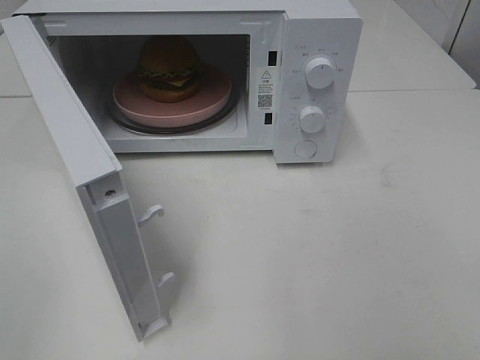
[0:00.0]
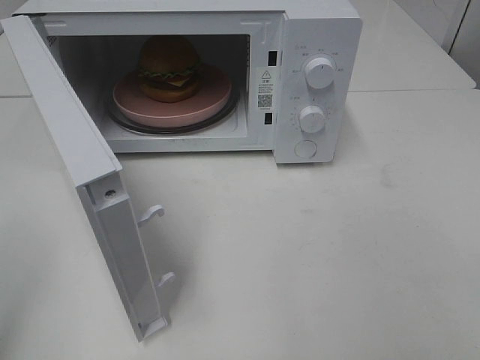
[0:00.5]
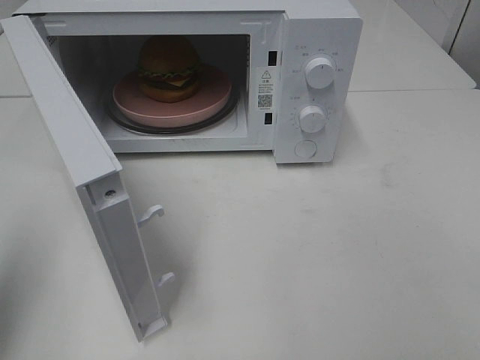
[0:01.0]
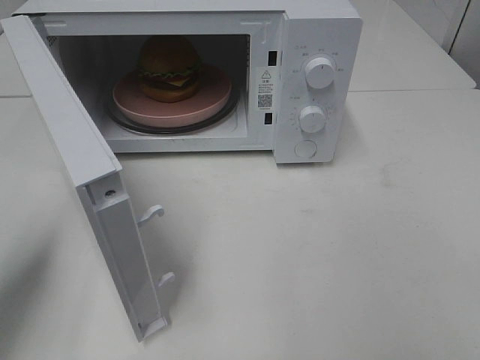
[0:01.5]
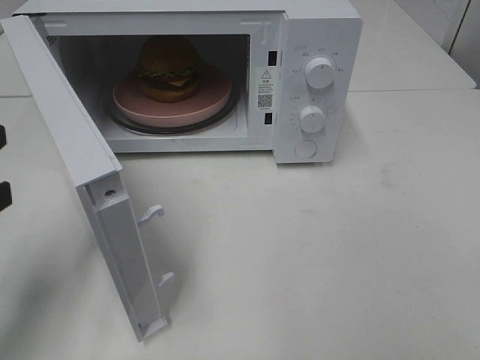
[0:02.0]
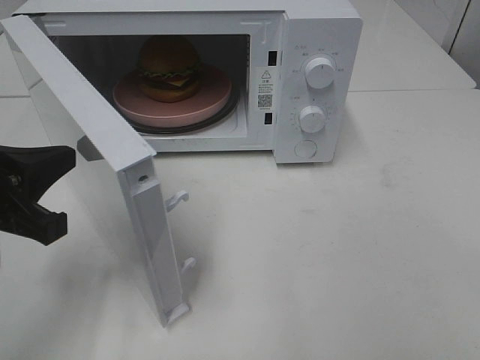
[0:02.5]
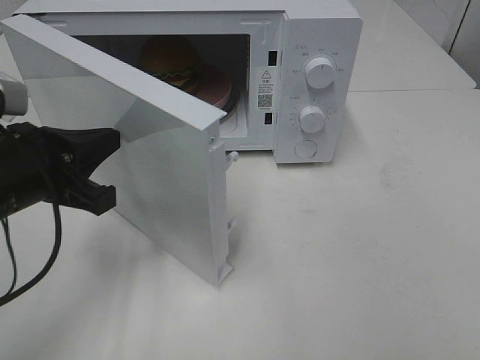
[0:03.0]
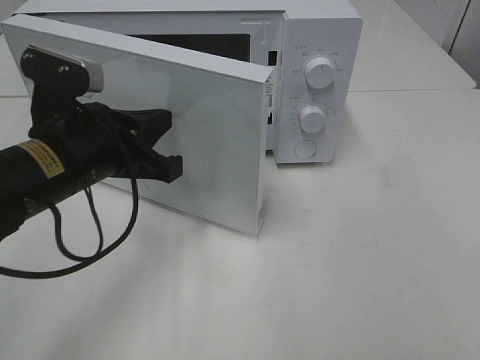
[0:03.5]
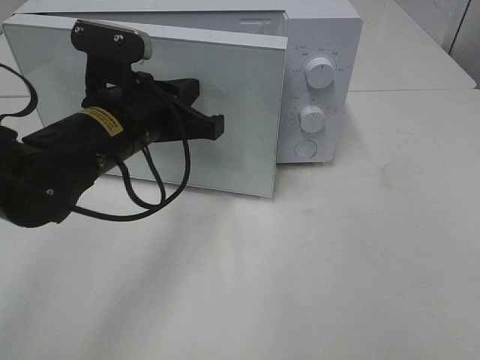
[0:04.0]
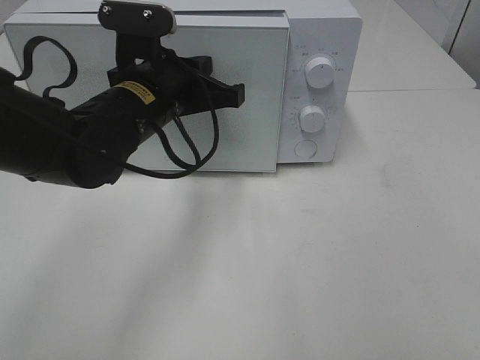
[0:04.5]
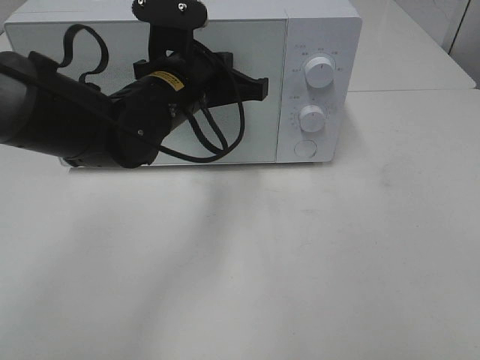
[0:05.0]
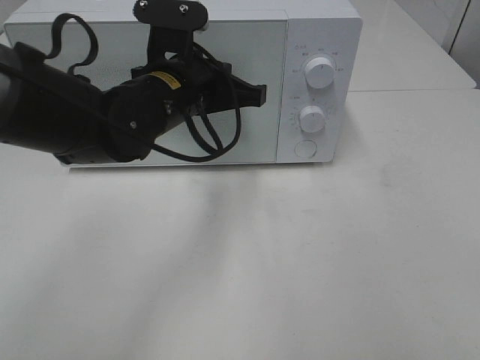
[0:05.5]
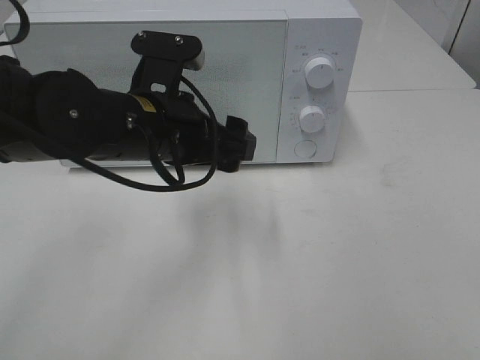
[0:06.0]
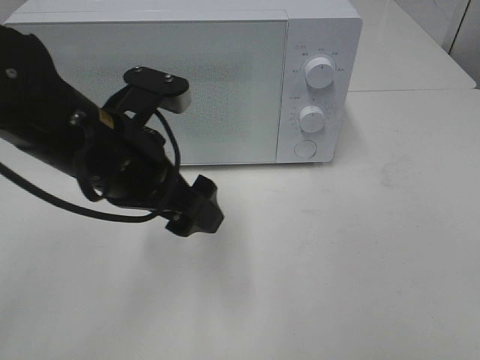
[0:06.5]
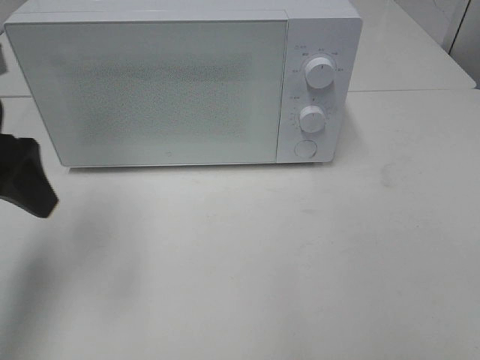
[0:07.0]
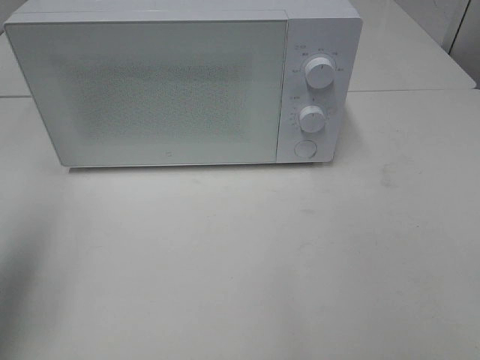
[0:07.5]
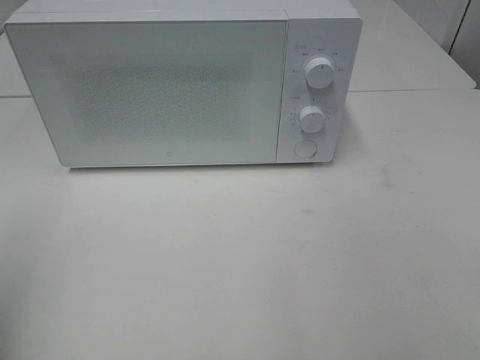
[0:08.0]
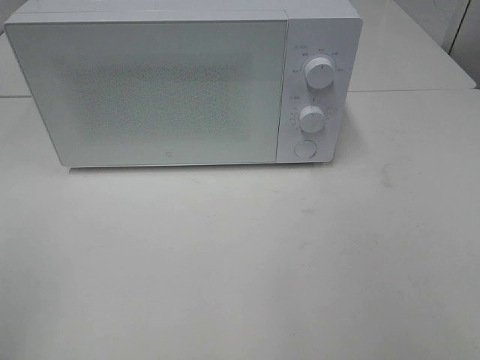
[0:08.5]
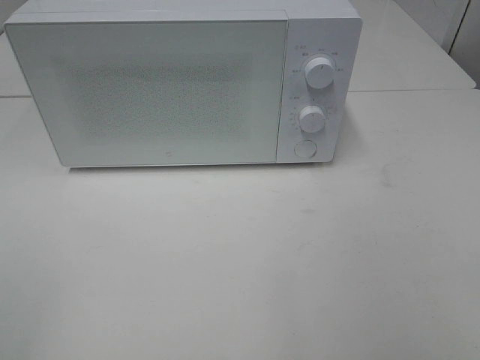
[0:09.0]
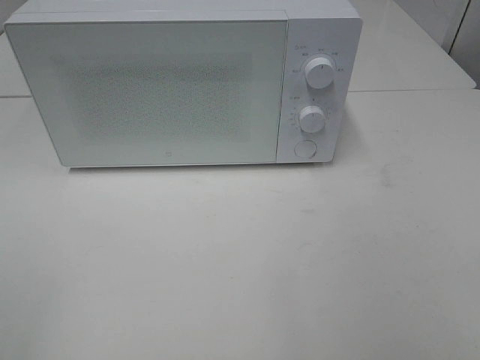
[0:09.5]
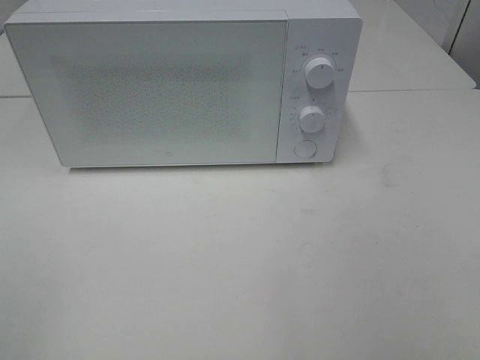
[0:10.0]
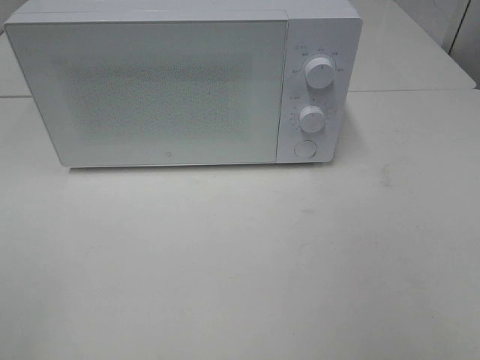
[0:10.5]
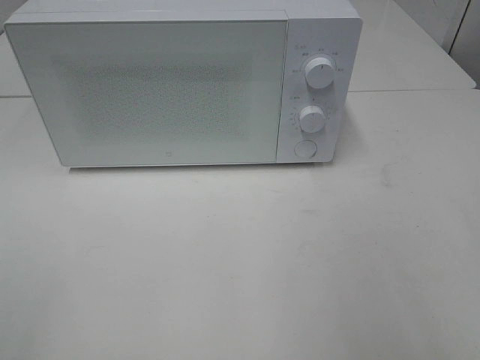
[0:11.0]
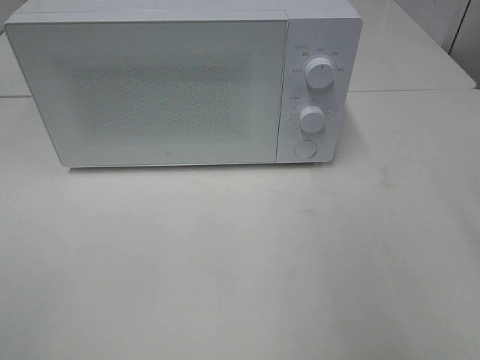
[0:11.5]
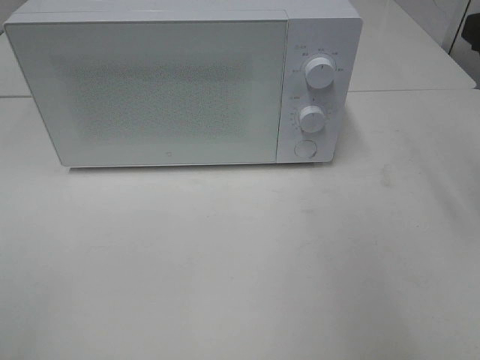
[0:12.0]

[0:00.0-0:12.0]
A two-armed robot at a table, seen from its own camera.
Task of the whole recording: Heat the burger.
Step, 0:00.0 to 0:06.0: Left hand: close the microwave door.
0:00.0 to 0:02.0: The left gripper goes about 20 cm forward and downward, and closes its fingers.
0:02.0 to 0:04.0: The left gripper goes about 20 cm to the right and forward.
0:04.0 to 0:06.0: The left gripper opens its fingers.
0:06.0 to 0:08.0: The left gripper heads to the left, backward and upward, covering roughly 35 cm.

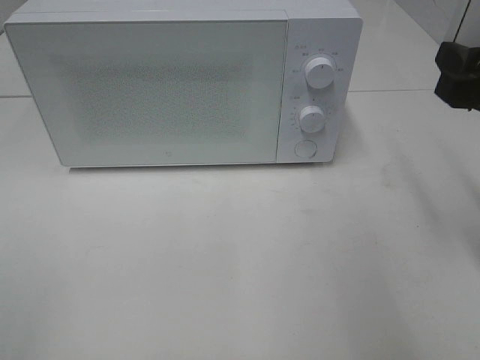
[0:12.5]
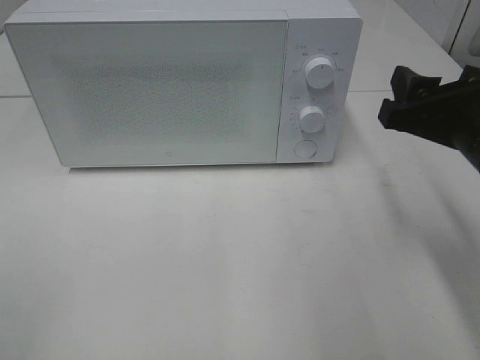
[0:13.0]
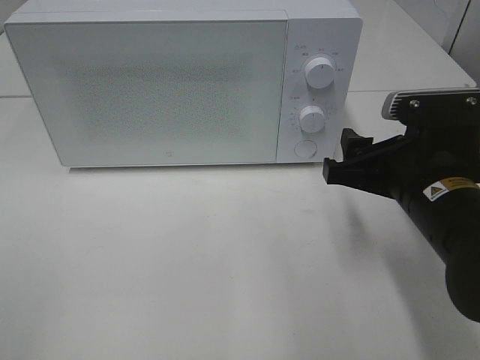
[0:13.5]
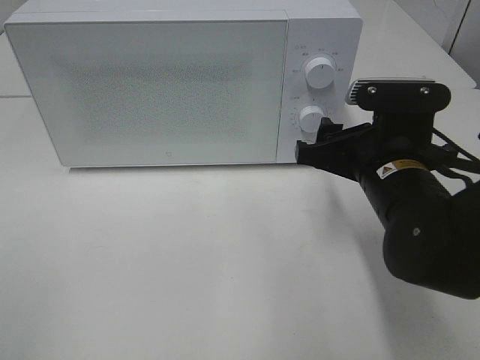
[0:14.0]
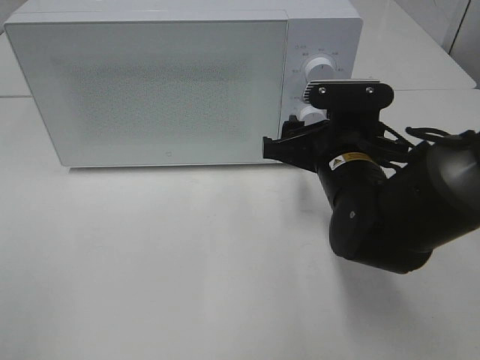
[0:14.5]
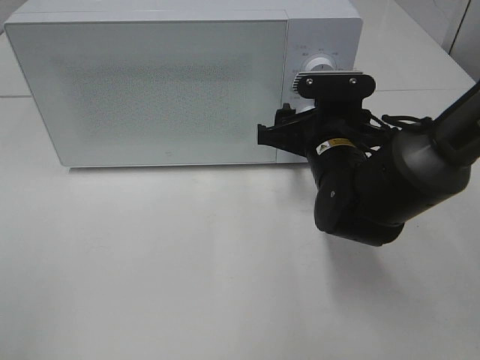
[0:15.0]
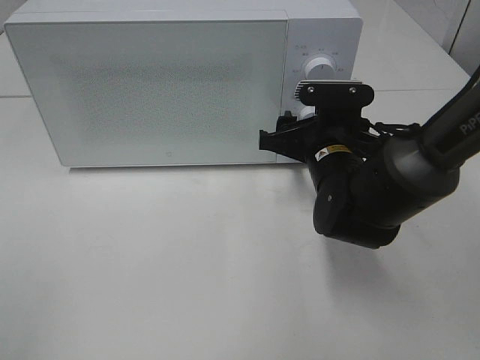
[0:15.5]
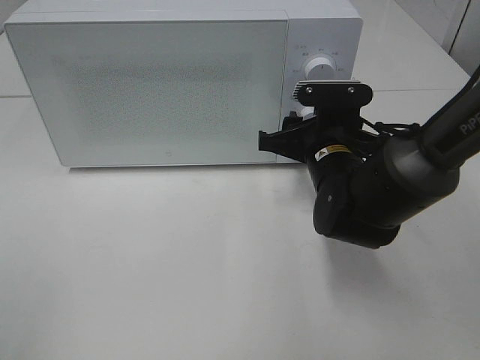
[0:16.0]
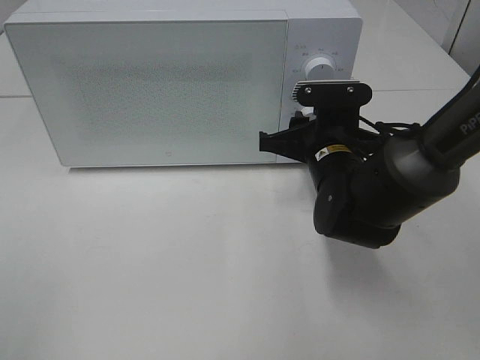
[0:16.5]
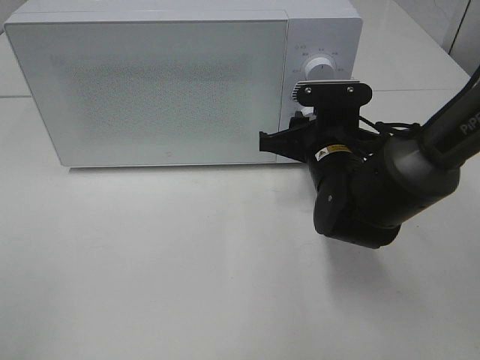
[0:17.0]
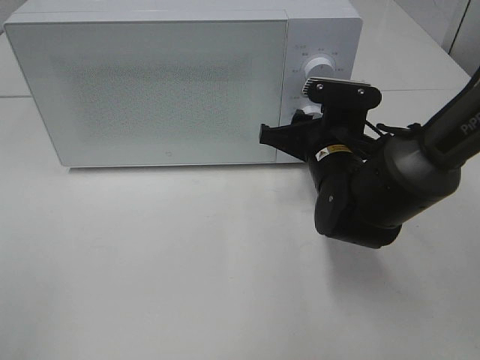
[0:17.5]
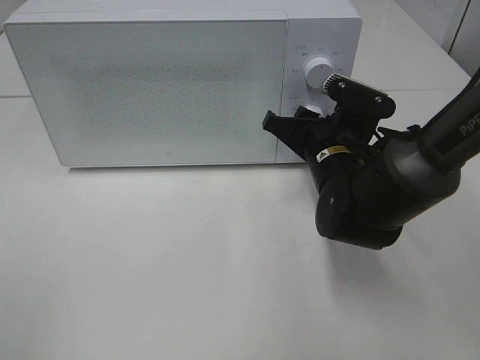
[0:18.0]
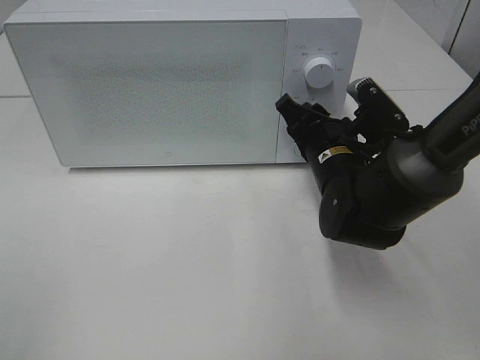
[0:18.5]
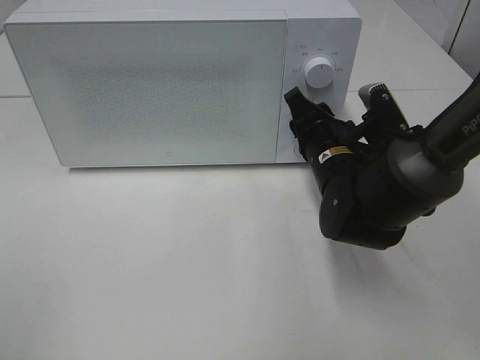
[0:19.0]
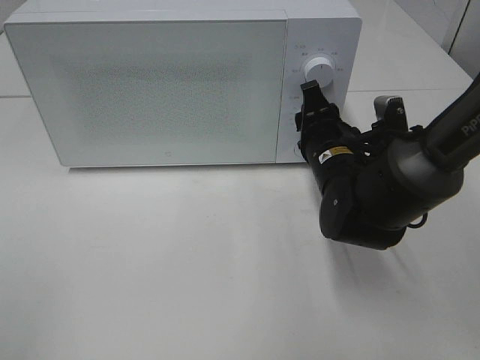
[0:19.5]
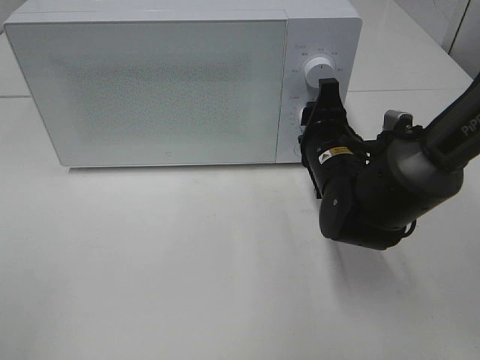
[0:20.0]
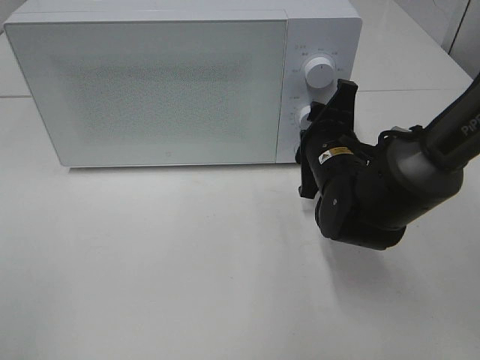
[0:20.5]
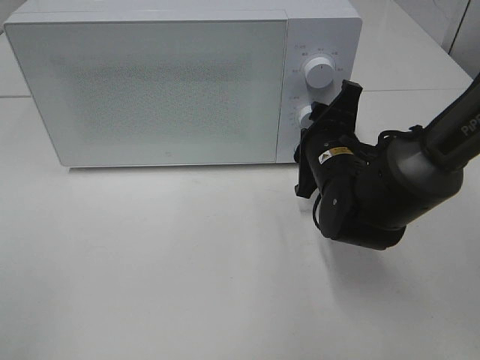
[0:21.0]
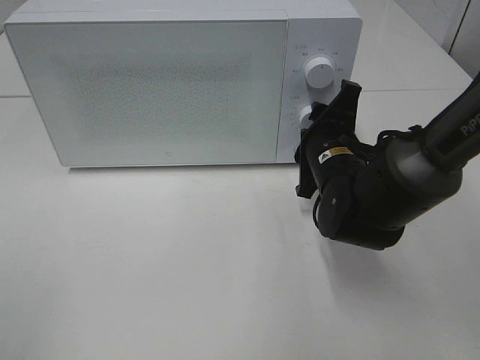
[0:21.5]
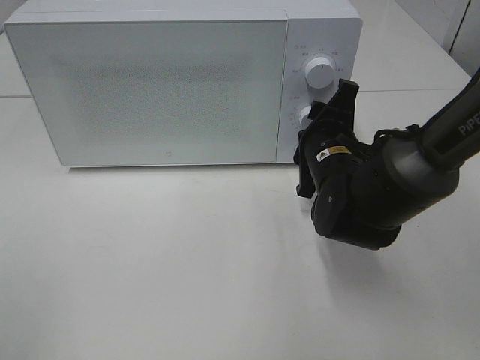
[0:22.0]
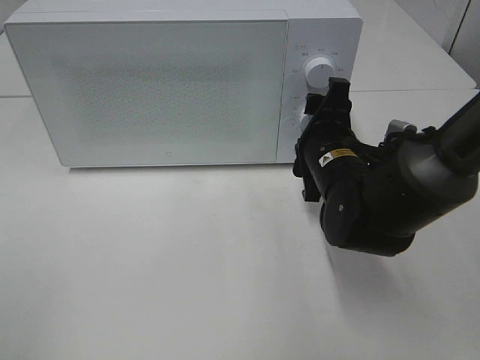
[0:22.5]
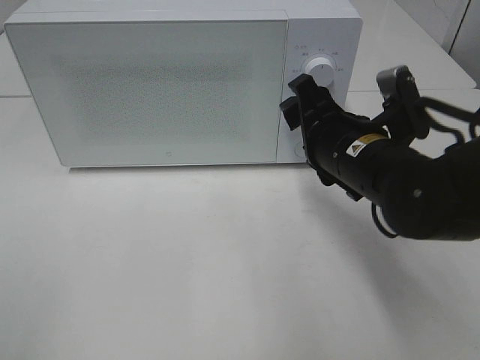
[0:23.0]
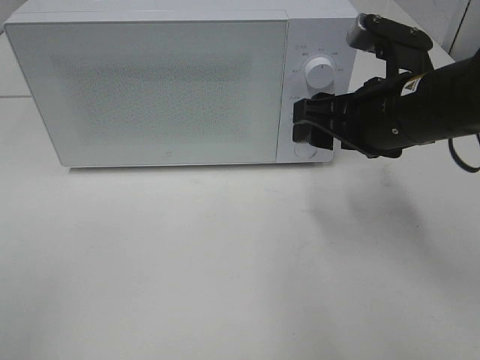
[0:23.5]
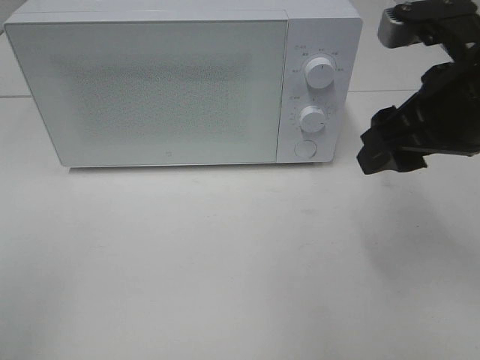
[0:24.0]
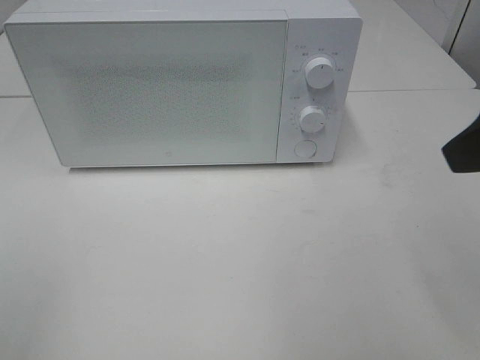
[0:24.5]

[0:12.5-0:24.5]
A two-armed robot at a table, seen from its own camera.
Task of the whole recording: Heat the burger.
Step, 0:12.5 to 0:22.5: Right hand: twist timer button.
0:12.5 to 0:14.5: The right gripper heads to the left, downward and forward, covering roughly 20 cm.
0:14.5 to 0:16.5: The grippers make only small movements.
0:20.5 to 0:22.5: The grippers stay close to where they were, moving slightly.
0:22.5 to 0:24.5: The right gripper is displaced upward, backward and to the right by approximately 30 cm.

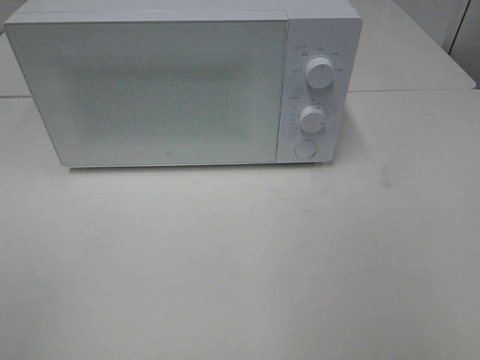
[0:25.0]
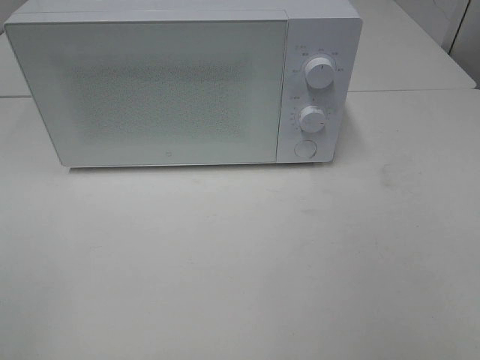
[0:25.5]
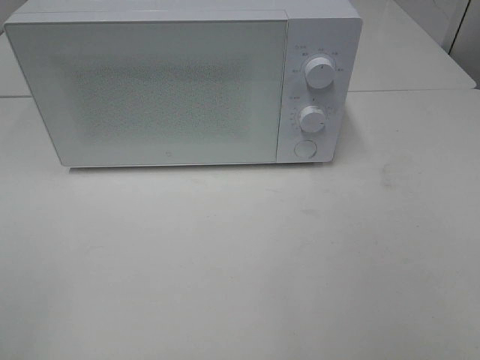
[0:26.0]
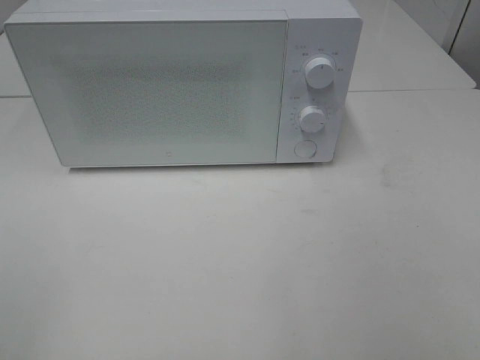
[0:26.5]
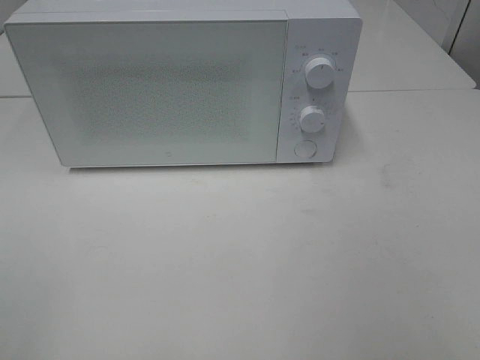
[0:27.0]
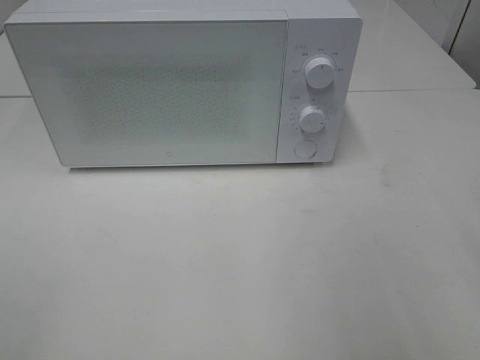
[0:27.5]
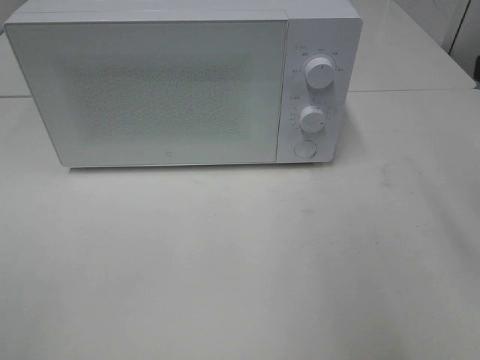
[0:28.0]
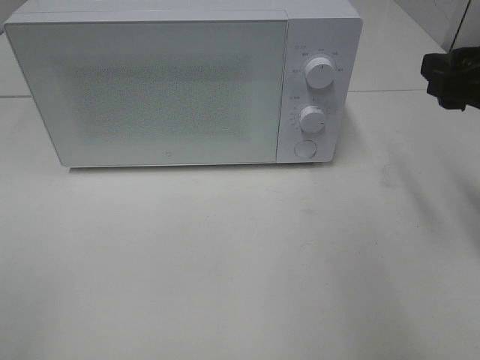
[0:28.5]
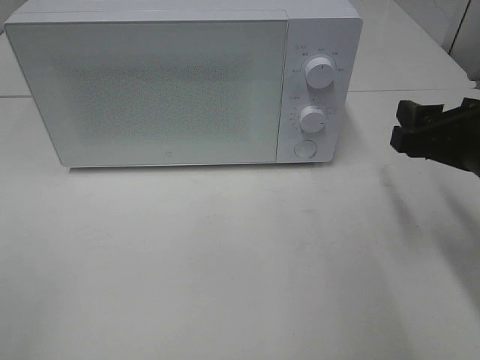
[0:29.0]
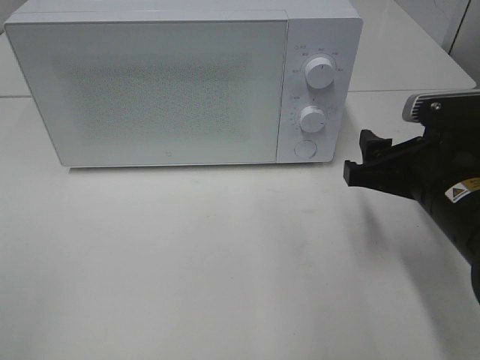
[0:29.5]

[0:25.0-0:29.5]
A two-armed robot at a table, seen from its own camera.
Task of the whole recording: Heat the burger.
0:27.0 to 0:29.5: The right gripper goes roughly 25 cm forward, downward and to the left.
